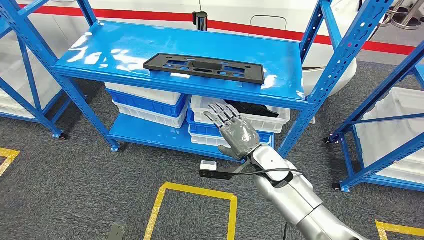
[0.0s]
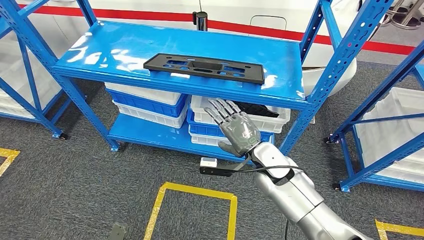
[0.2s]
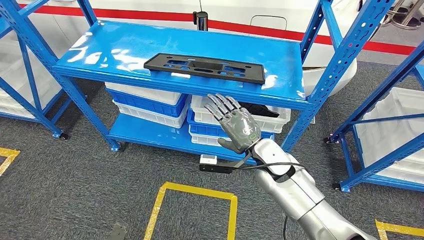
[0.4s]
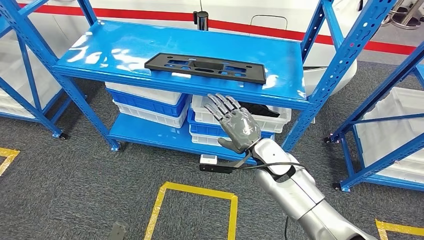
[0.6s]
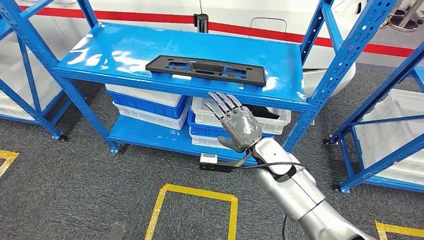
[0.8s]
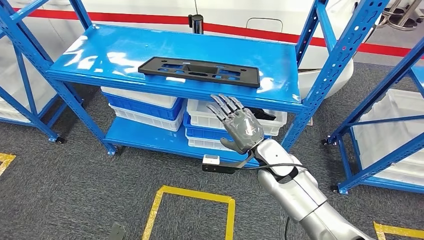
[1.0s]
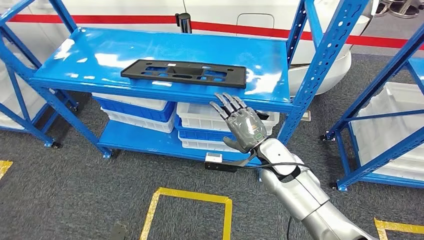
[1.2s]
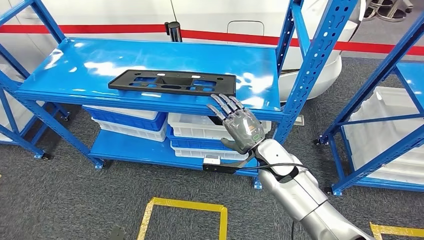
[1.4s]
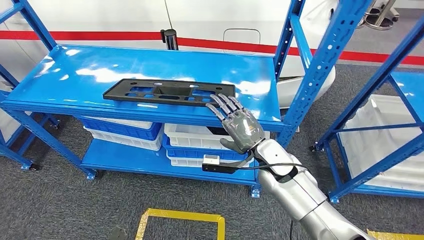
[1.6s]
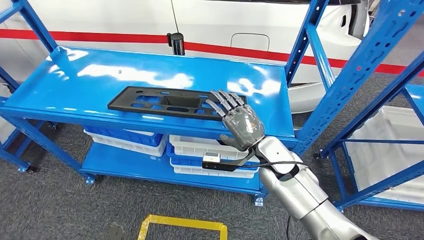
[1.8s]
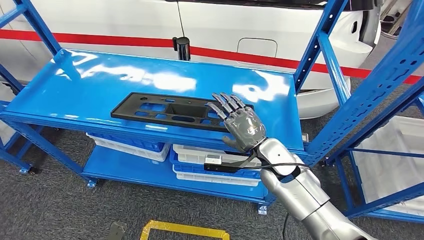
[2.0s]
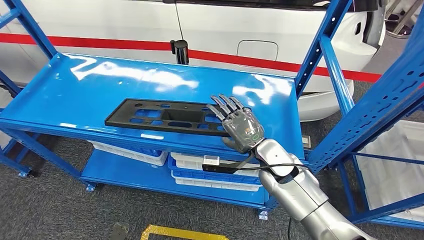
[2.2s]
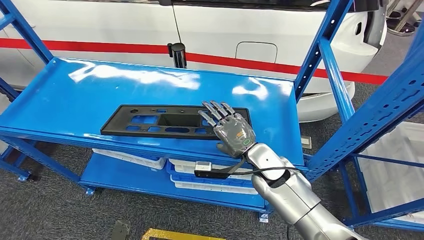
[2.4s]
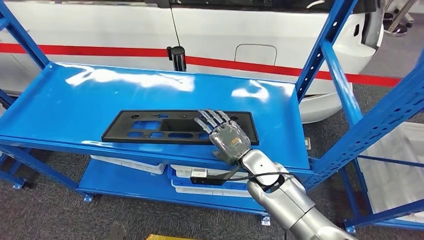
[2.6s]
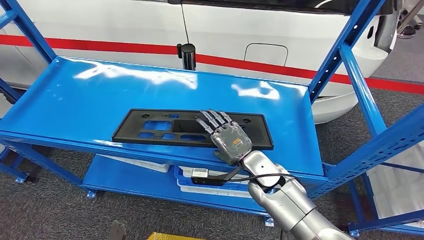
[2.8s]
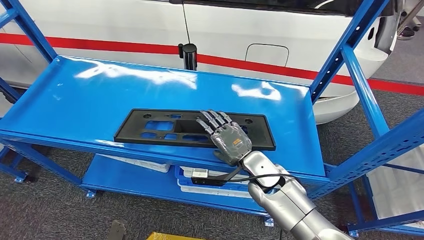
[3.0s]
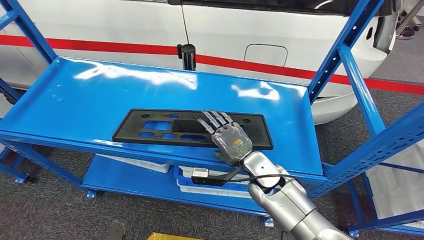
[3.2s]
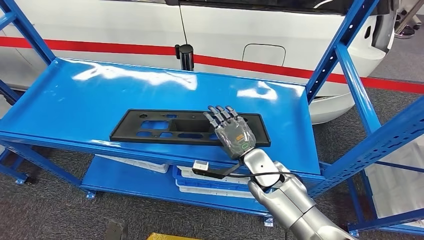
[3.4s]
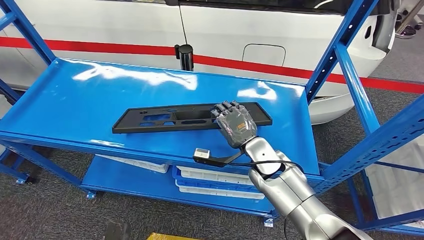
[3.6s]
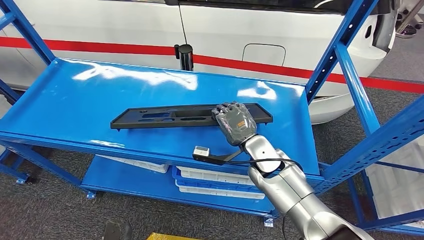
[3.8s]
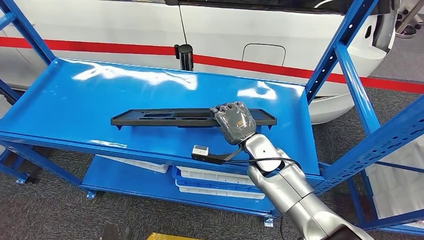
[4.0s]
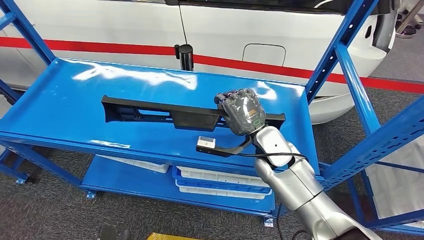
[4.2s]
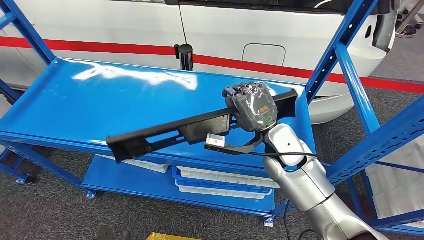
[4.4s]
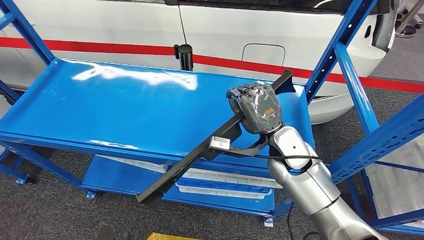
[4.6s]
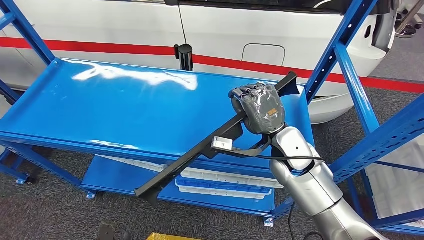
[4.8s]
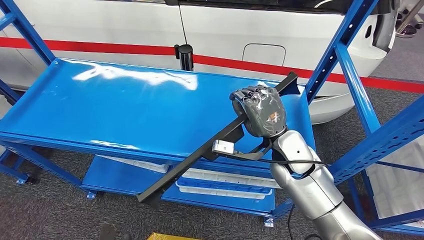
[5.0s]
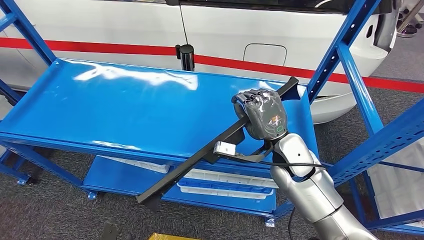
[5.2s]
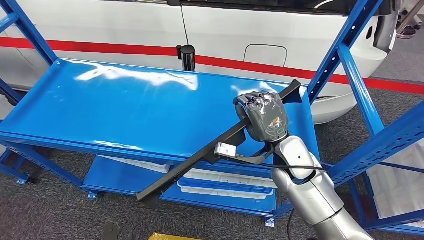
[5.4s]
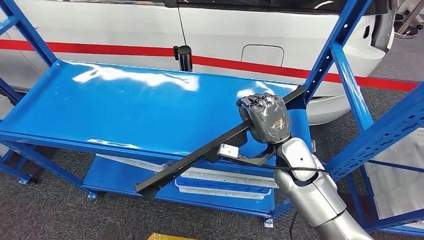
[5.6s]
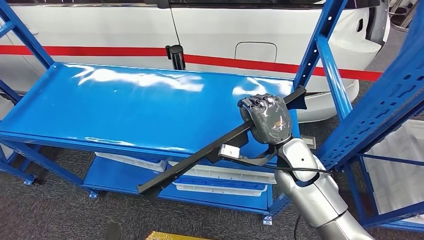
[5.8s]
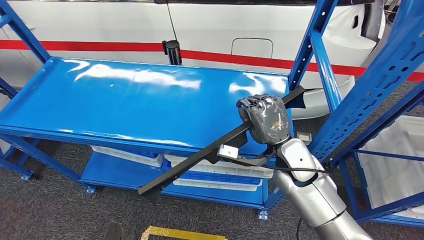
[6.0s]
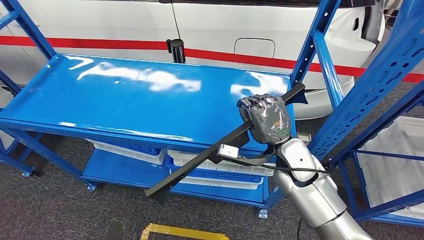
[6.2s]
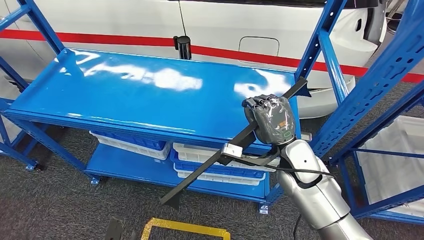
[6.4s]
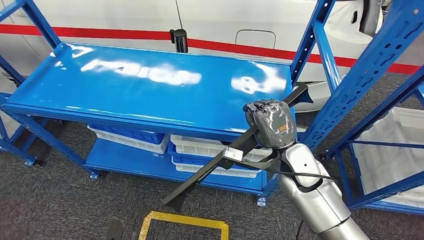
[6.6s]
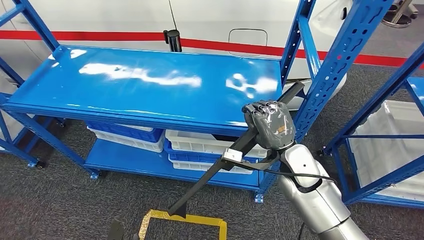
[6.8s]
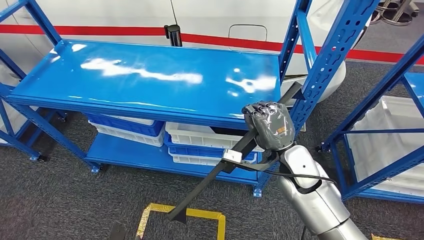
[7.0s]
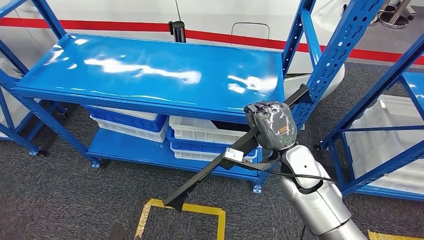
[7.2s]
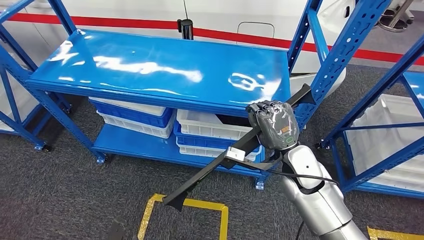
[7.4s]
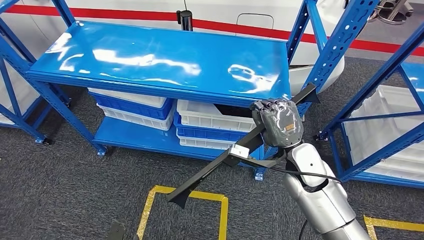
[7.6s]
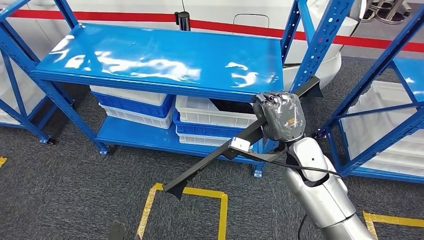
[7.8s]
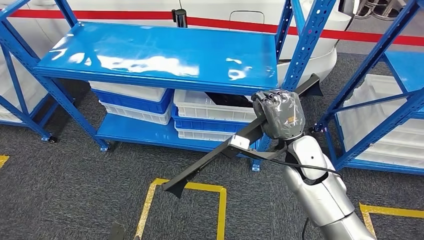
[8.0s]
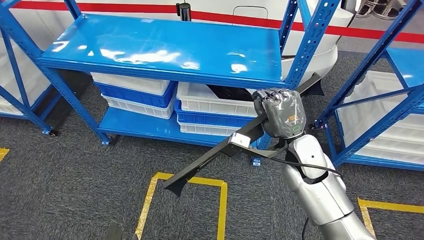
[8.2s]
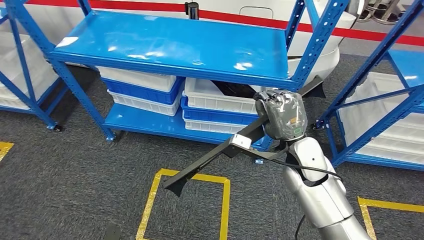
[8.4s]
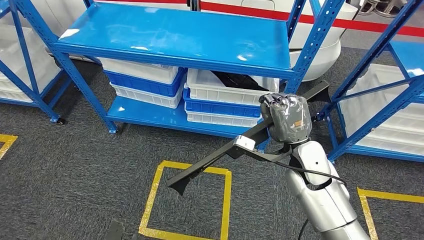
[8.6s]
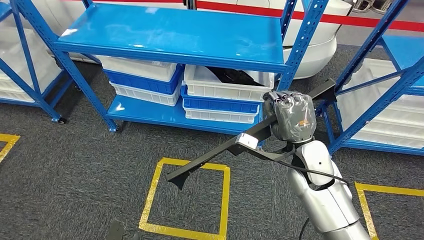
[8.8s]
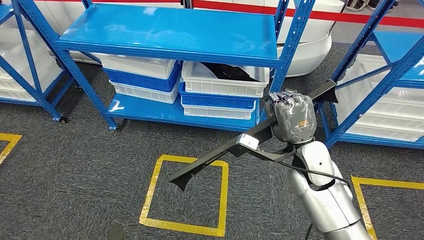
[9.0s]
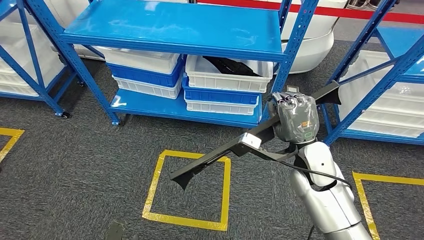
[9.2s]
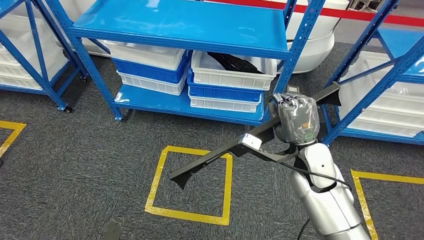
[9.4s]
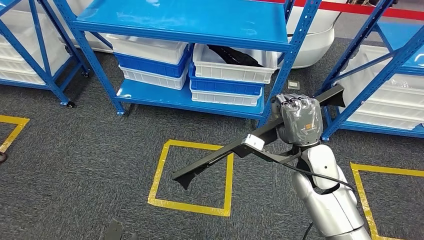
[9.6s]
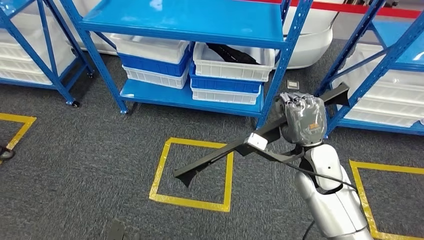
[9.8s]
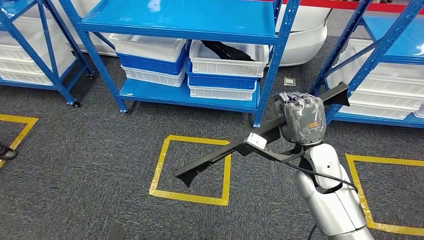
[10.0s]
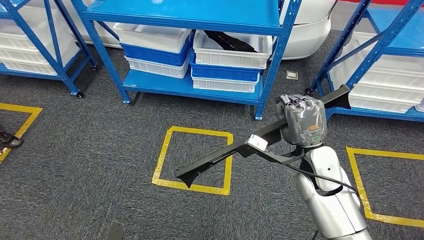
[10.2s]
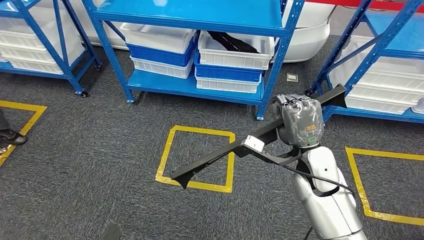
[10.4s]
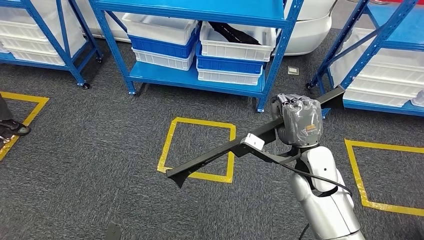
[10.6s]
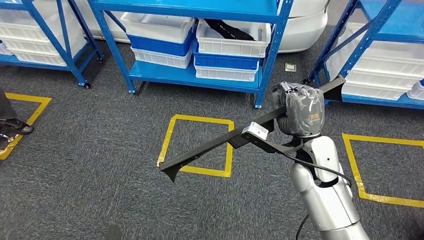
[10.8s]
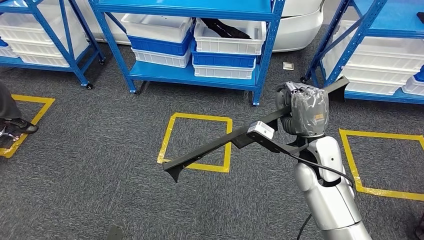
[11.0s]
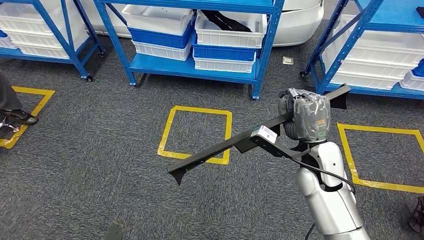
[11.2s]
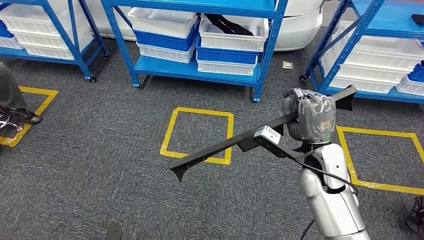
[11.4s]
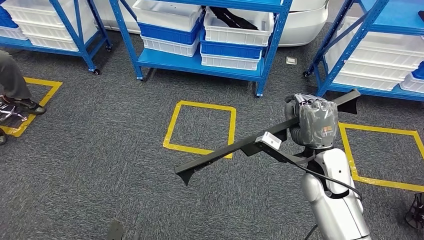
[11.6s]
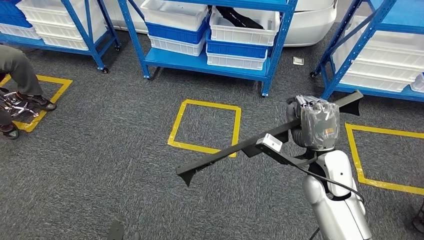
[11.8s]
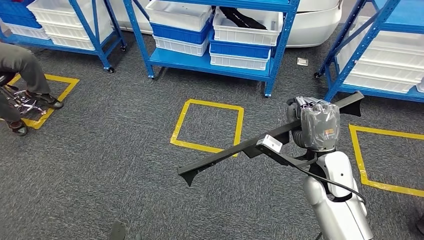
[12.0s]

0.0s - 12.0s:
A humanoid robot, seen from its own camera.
Step, 0.0s - 7.4s: Pick up the large material from the shelf.

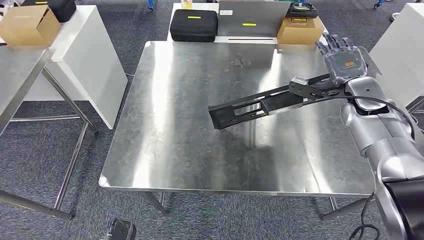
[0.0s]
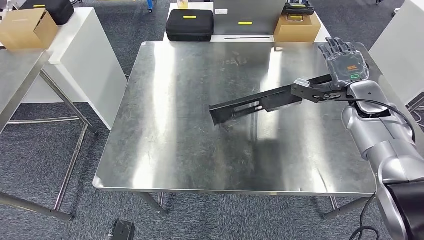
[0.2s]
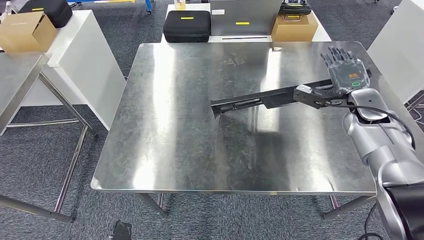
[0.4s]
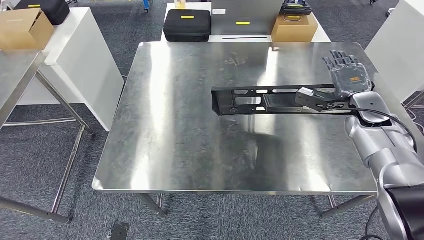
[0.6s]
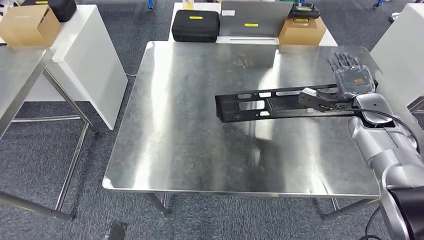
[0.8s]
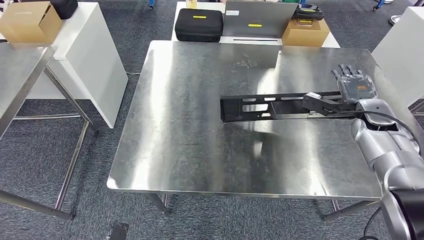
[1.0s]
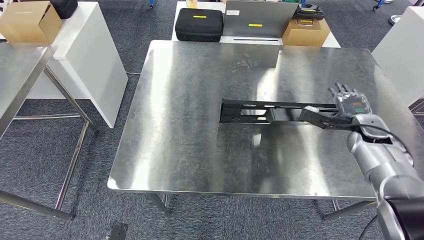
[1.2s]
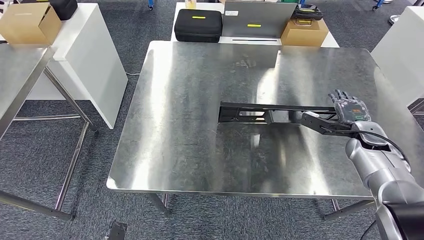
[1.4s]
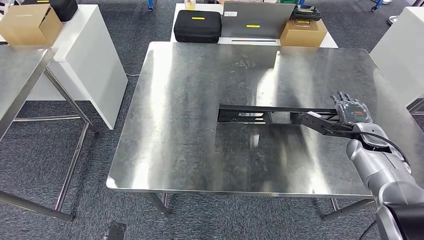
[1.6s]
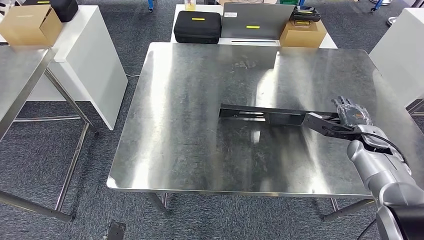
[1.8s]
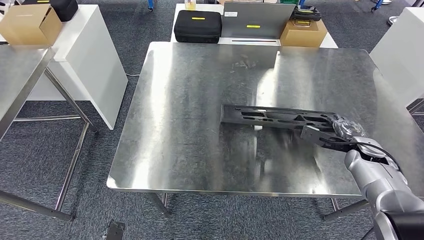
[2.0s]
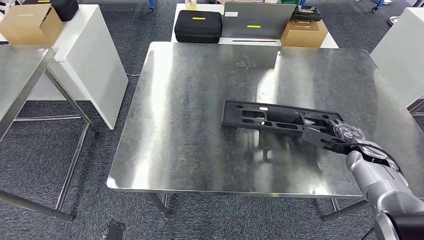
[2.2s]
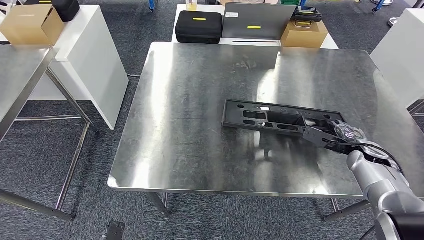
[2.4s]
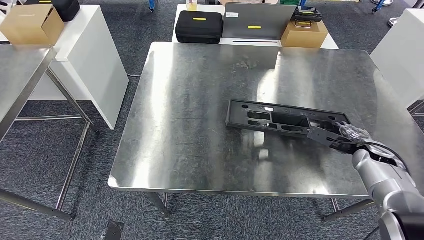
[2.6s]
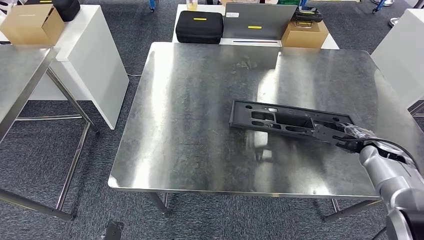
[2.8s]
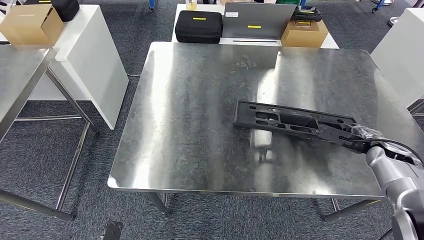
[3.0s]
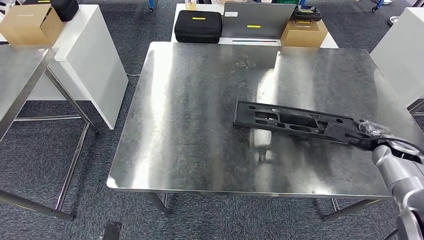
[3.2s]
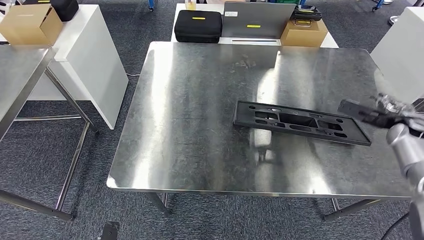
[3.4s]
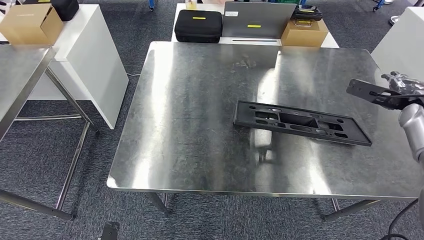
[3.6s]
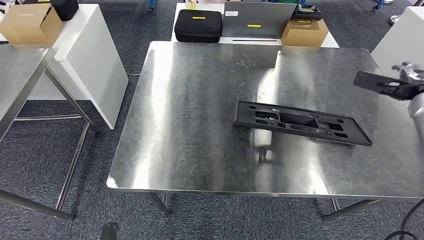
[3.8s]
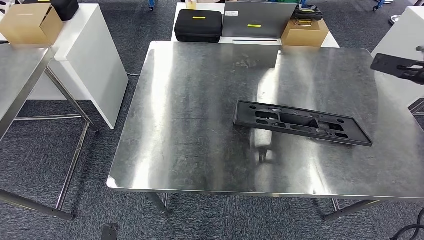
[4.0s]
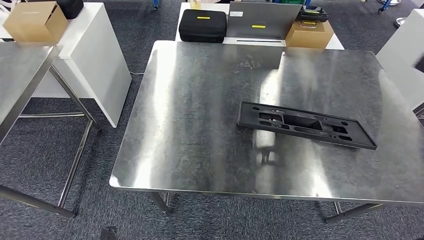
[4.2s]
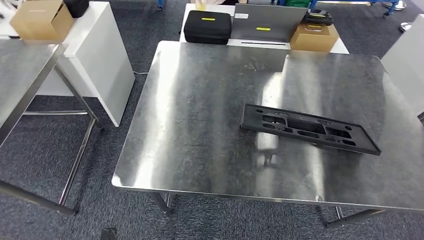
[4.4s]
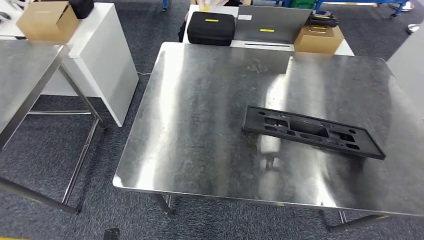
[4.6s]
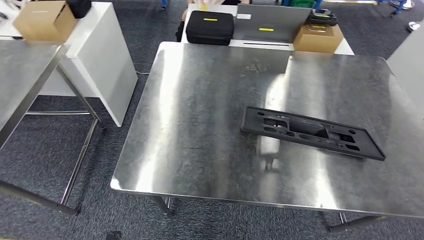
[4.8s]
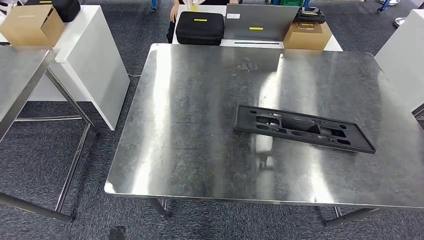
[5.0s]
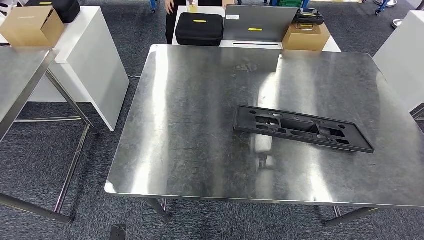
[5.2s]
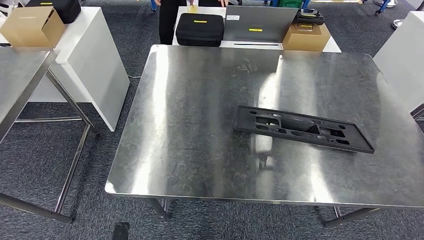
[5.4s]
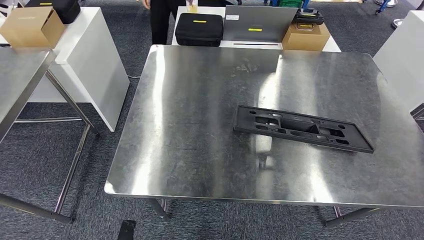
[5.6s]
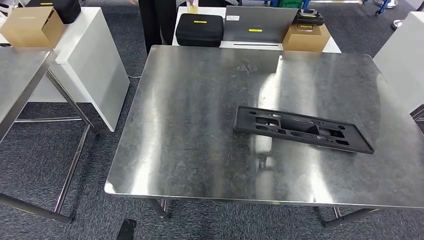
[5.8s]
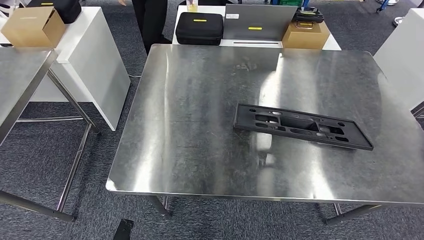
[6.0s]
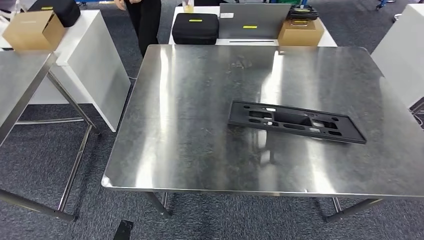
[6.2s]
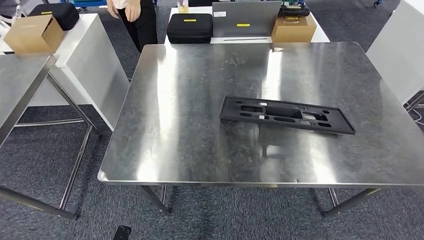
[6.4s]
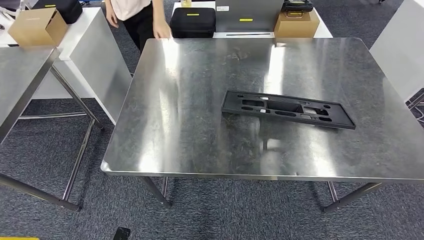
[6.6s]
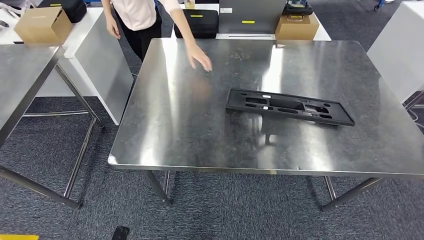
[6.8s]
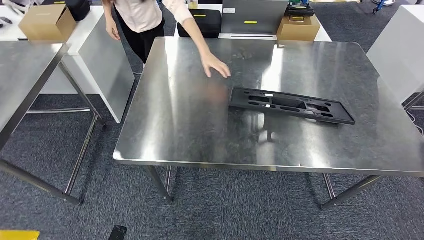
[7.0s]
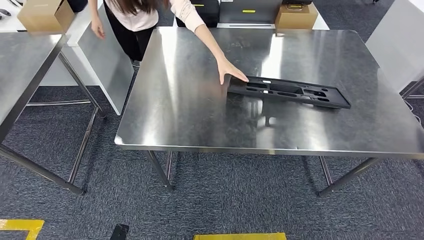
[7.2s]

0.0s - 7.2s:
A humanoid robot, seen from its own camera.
1.4s - 2.8s: The right hand moves about 5 cm.
